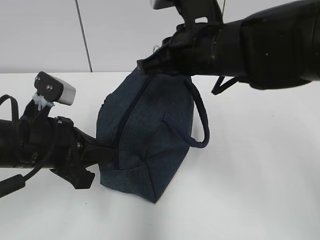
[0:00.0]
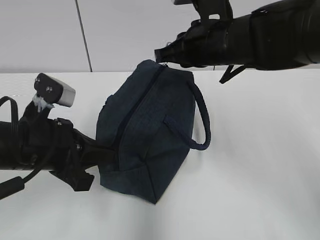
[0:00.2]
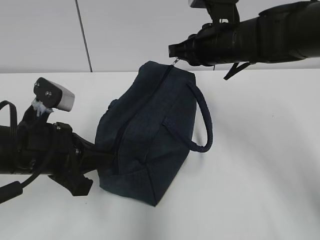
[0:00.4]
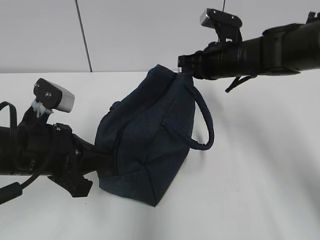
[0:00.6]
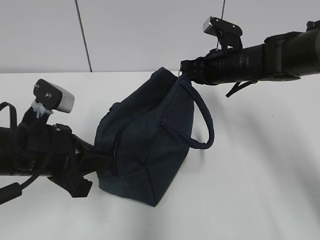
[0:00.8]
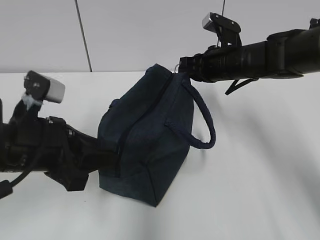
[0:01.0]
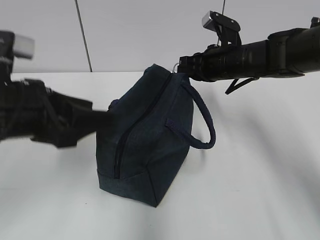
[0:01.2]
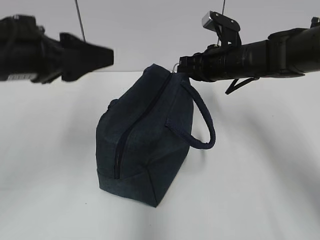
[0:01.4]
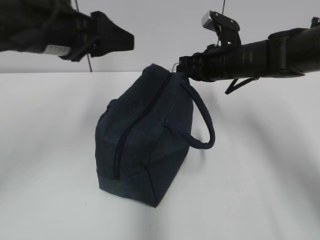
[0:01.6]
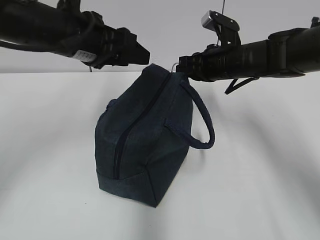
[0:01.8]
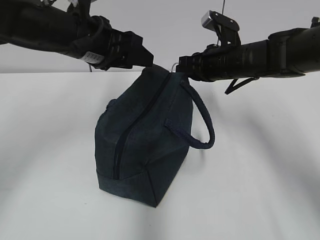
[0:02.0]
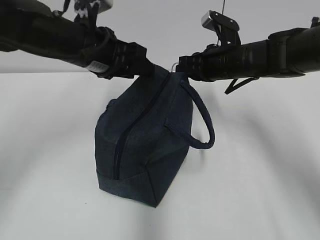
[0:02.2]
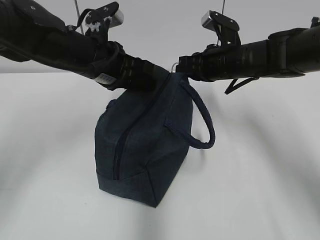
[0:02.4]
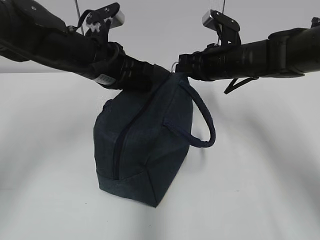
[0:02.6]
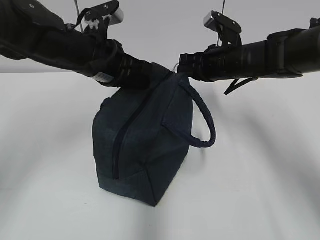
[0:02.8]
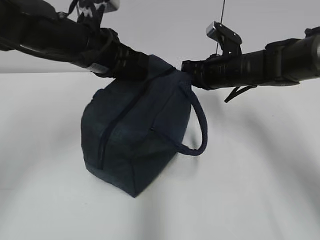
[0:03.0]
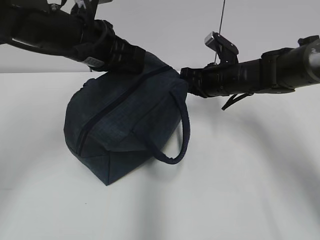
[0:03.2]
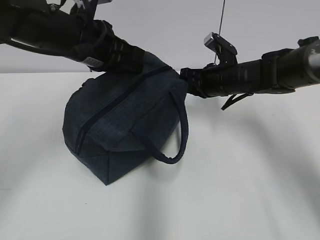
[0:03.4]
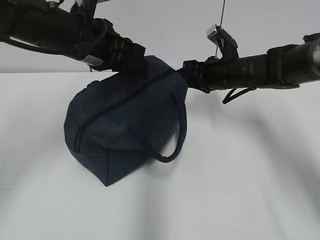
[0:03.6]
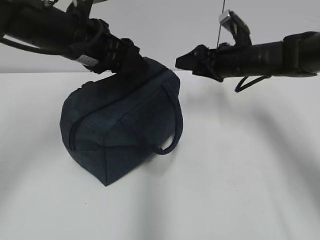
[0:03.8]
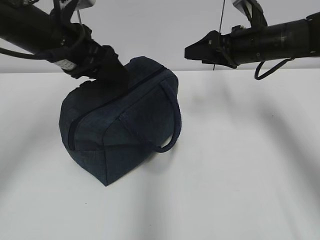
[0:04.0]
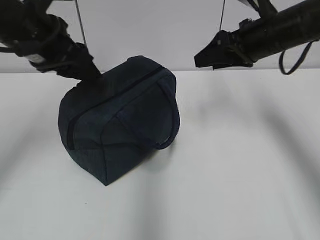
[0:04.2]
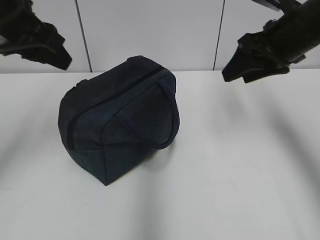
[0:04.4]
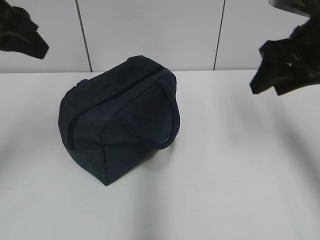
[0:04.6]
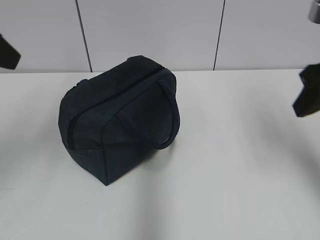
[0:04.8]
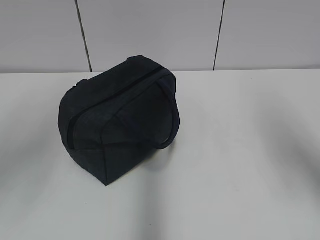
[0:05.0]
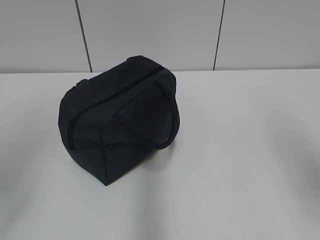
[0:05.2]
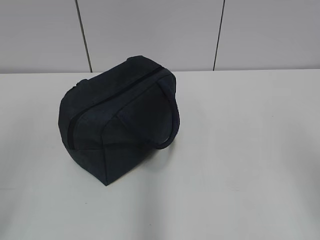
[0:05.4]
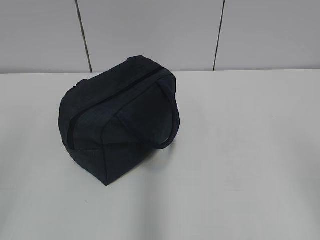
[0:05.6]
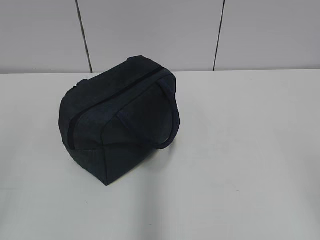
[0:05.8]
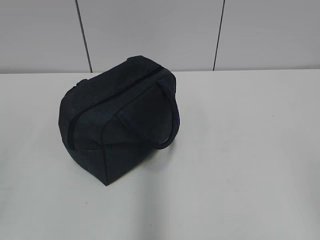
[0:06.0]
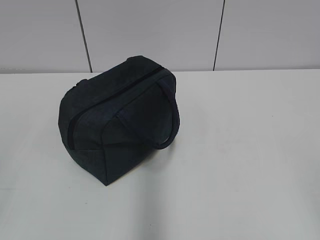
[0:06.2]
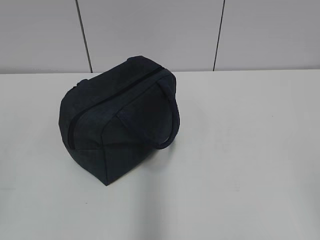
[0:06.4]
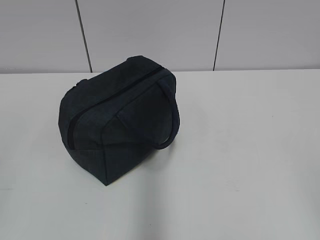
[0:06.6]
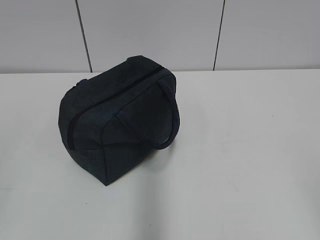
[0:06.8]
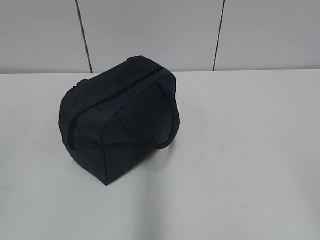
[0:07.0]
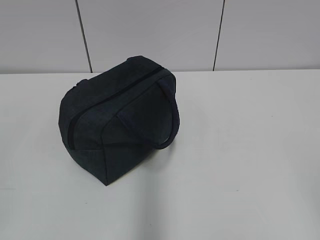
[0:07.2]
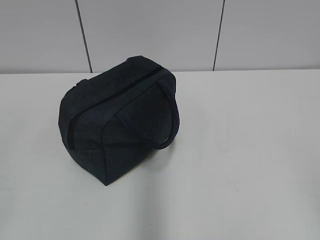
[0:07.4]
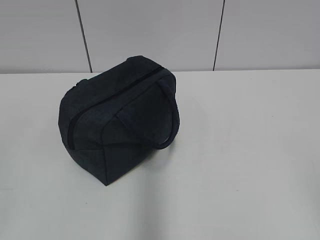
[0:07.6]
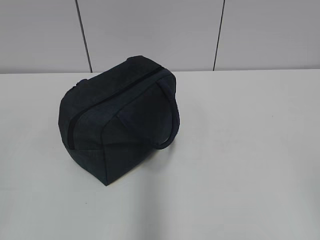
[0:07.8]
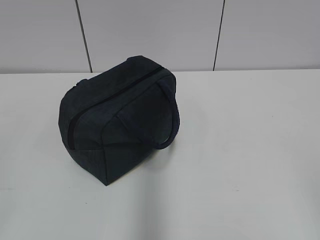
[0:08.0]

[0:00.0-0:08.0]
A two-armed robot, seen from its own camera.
0:00.0 to 0:01.6: The left gripper goes roughly 15 cm upward and forward, and opens. The right gripper heads forward, downward and to the right, covering approximately 15 cm.
0:01.6 to 0:03.2: The left gripper closes its fingers.
0:03.2 to 0:04.8: The left gripper goes roughly 20 cm backward, to the left and upward, and opens; the right gripper is displaced backward, upward and to the right by about 30 cm, and opens its fingers.
0:04.8 to 0:06.4: The left gripper shifts about 25 cm backward and downward, while the right gripper is displaced backward by roughly 25 cm.

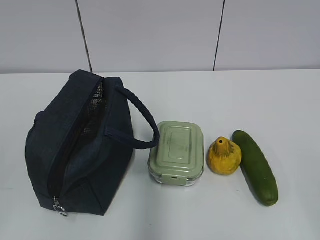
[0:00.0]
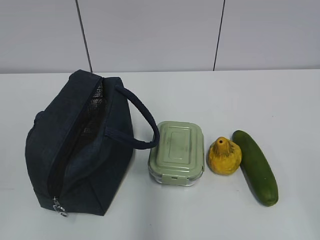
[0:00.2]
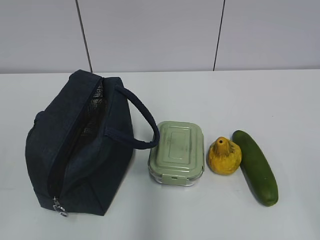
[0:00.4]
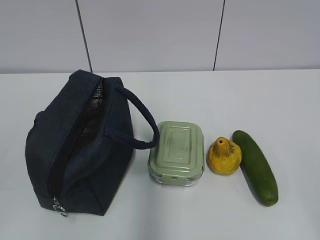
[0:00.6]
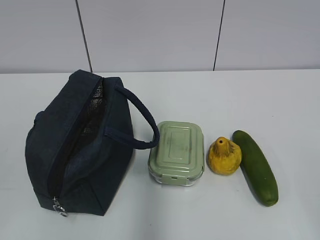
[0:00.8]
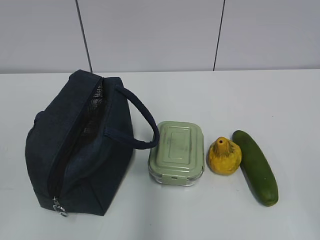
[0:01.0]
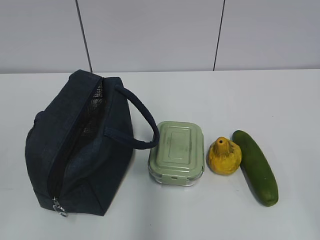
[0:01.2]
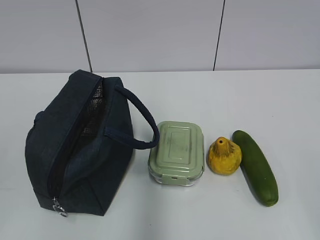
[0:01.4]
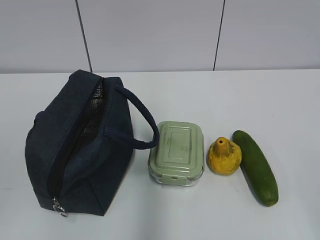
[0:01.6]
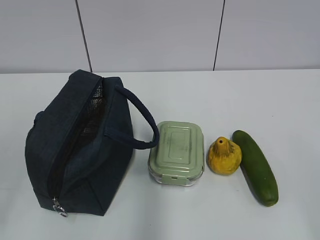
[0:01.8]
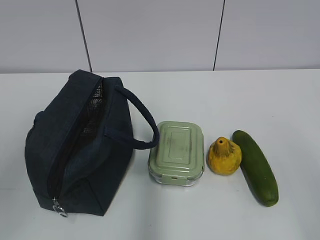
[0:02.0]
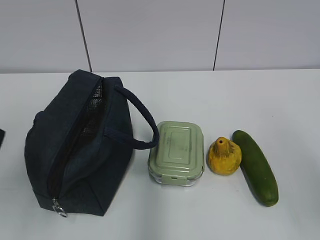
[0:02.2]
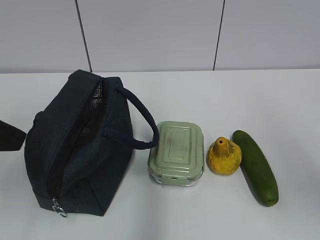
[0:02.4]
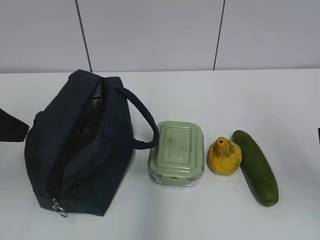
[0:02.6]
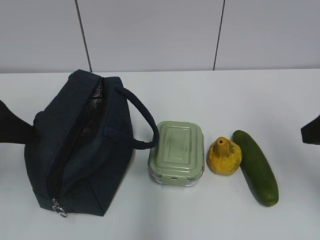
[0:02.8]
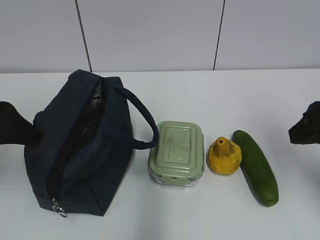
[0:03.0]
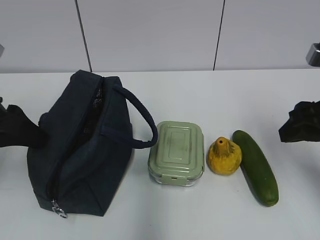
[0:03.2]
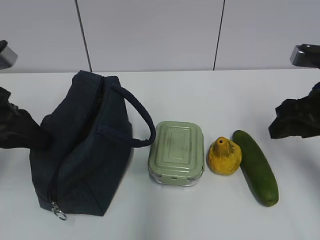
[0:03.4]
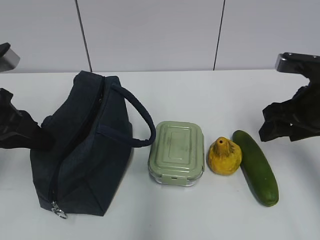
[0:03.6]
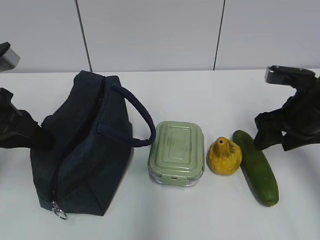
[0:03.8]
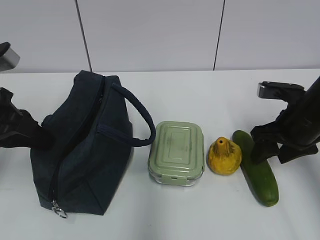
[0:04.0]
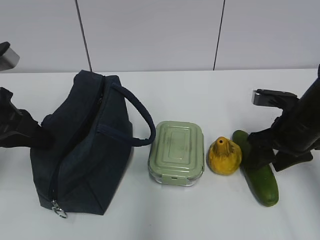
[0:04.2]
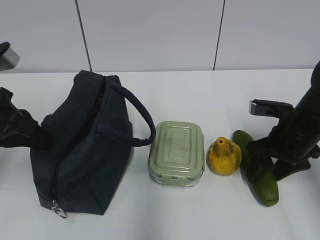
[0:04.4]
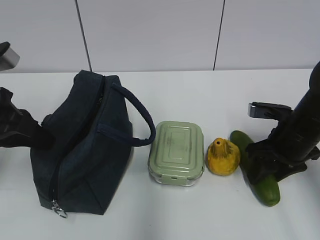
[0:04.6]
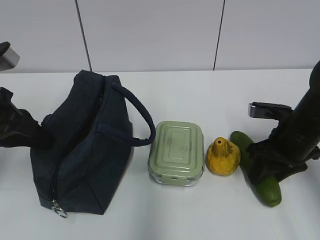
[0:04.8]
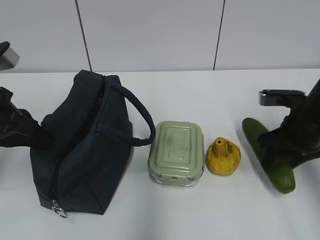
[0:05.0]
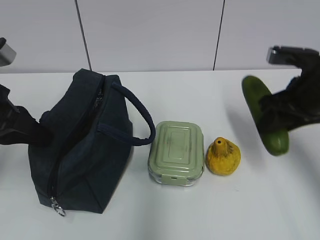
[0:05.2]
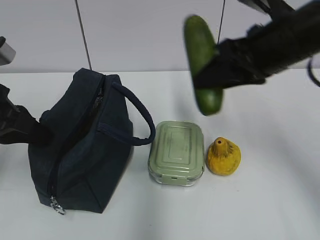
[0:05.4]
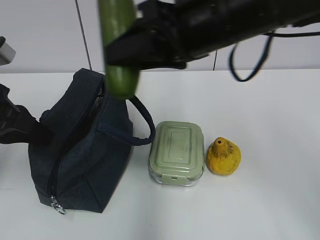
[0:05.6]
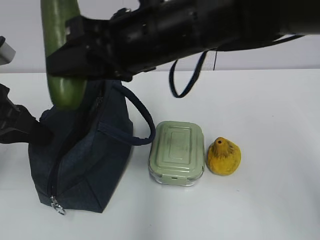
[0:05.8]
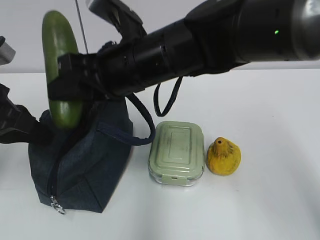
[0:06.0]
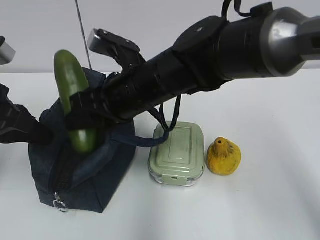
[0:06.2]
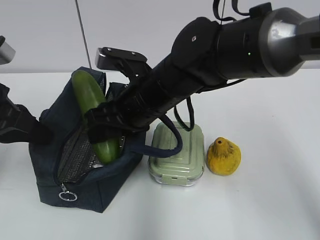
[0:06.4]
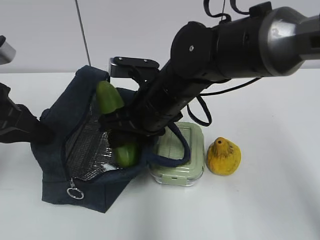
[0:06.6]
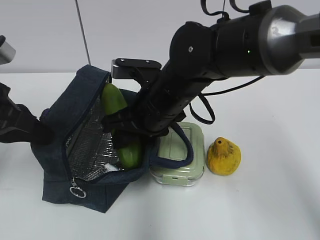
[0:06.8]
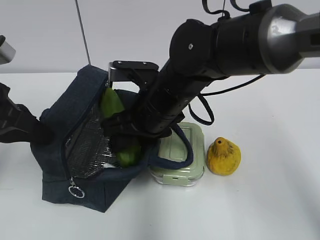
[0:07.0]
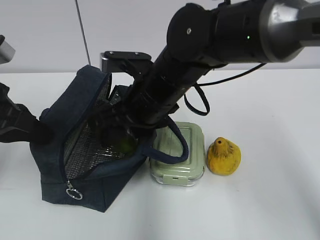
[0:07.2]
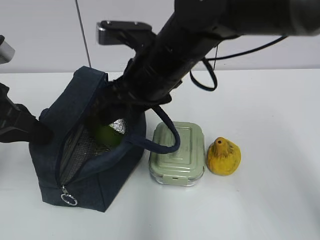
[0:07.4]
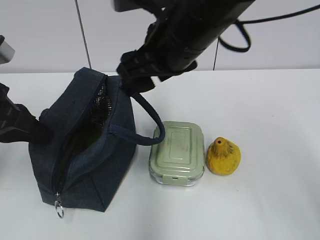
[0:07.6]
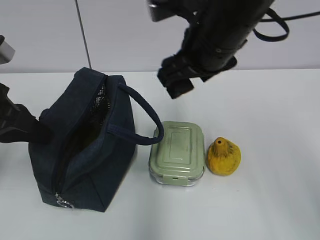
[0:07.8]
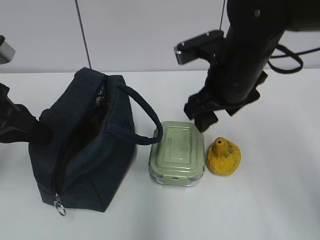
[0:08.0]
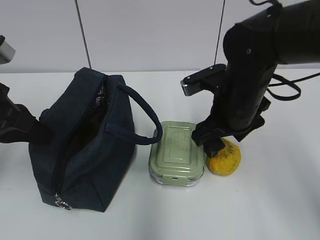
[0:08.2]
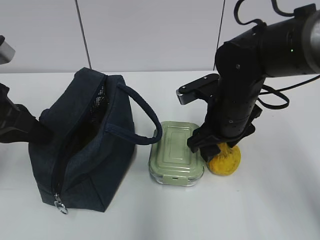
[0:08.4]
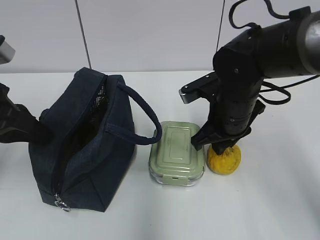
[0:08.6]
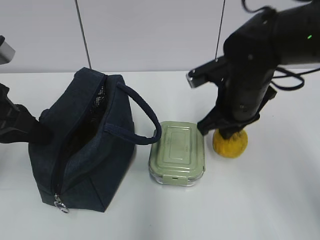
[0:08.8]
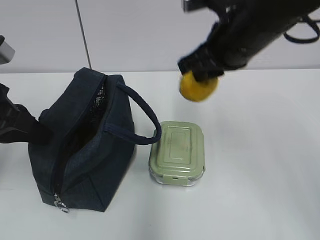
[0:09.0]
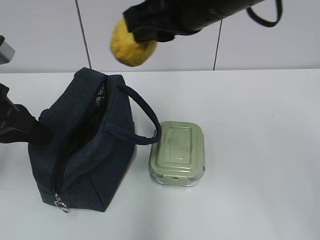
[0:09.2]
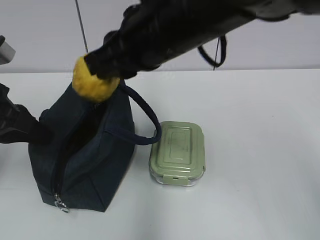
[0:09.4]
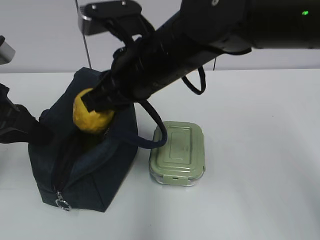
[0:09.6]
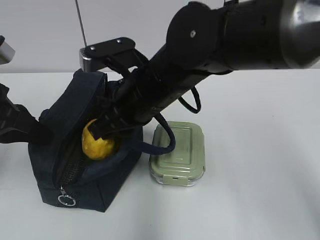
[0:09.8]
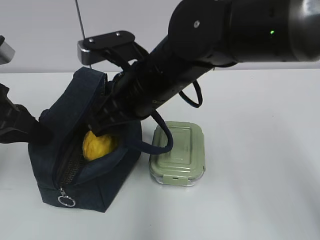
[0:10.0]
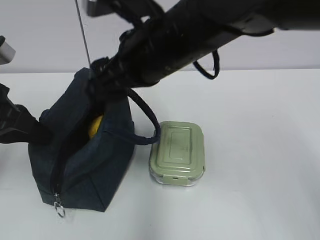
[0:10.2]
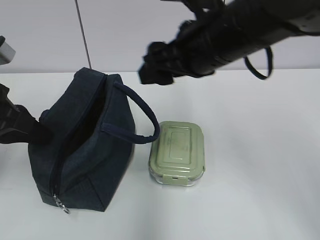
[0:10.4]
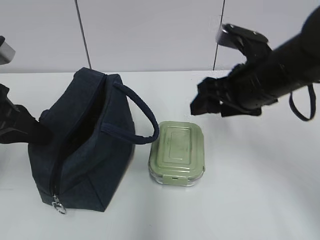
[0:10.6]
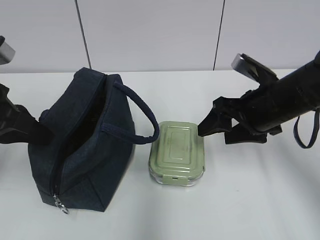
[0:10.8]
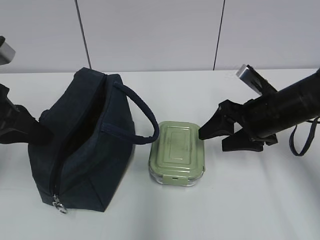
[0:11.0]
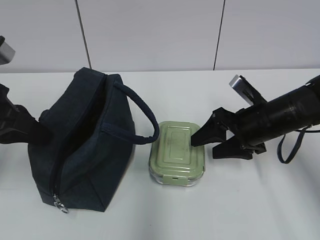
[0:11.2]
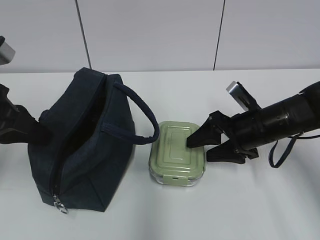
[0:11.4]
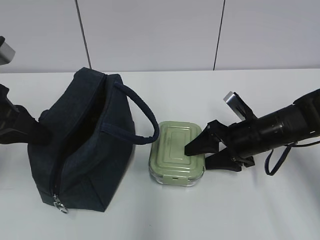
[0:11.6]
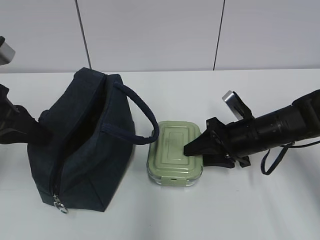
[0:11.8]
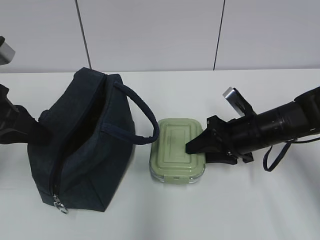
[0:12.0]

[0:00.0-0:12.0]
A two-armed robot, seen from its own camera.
Step, 0:00.0 to 0:04.6: Grab the cucumber with your right hand.
Step, 0:06.4 to 0:07.2: Place it into the bag with your right hand.
Step, 0:07.6 to 0:08.4: Grab the pear with your right hand.
Step, 0:08.6 to 0:10.2: Place it into the bag with your right hand.
Step, 0:10.4 to 0:11.8: Grab the lunch box with your right hand.
0:01.6 to 0:03.0: Both grippers travel together forward, approximately 25 cm.
0:03.0 to 0:04.4: The right gripper moves downward and forward, some 15 cm. Meanwhile the left gripper closes its fingers.
0:04.4 to 0:06.0: The right gripper shifts about 30 cm to the left and upward.
0:06.0 to 0:07.6: The right gripper heads to the right and upward, covering approximately 10 cm, and opens its fingers.
0:07.6 to 0:09.0: The right gripper travels downward and back again, about 15 cm each way, and closes.
0:09.0 to 0:10.4: The right gripper opens its fingers.
0:10.4 to 0:12.0: The right gripper travels downward and to the right by about 20 cm, and closes.

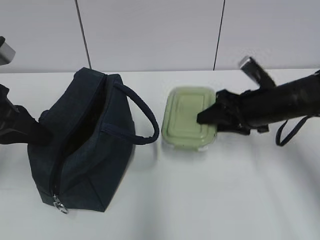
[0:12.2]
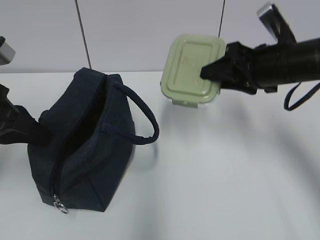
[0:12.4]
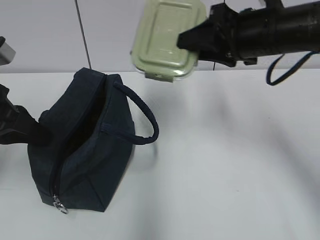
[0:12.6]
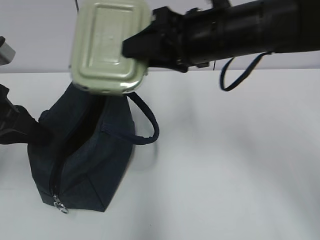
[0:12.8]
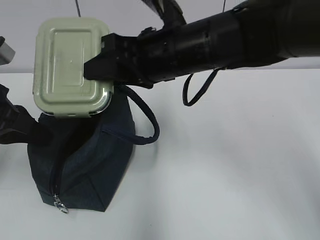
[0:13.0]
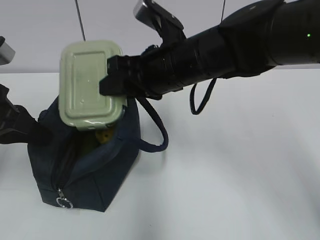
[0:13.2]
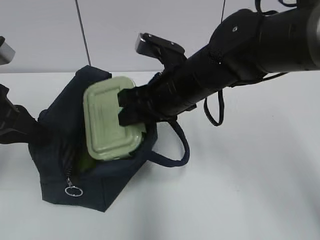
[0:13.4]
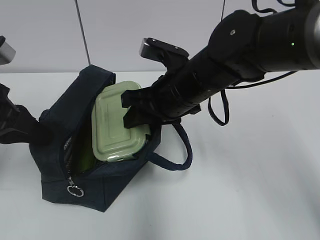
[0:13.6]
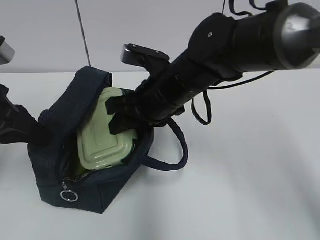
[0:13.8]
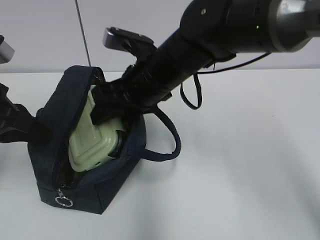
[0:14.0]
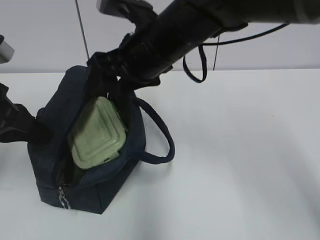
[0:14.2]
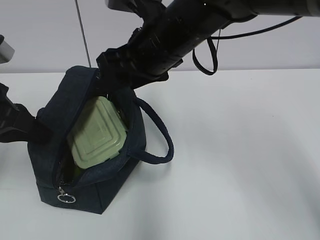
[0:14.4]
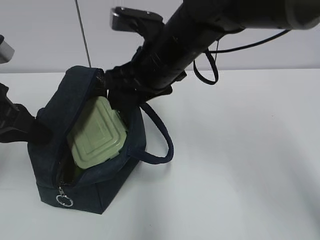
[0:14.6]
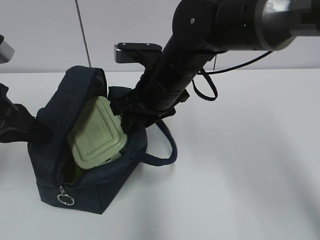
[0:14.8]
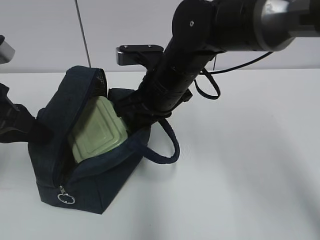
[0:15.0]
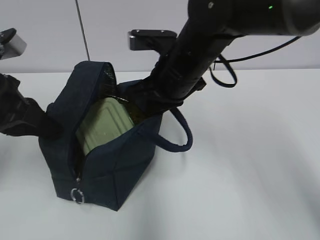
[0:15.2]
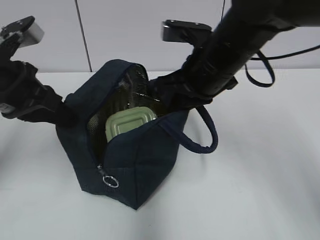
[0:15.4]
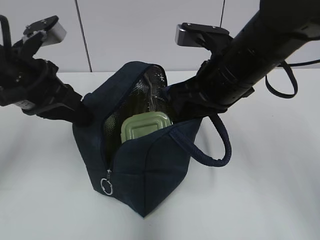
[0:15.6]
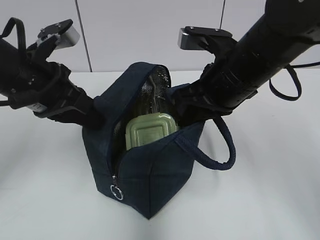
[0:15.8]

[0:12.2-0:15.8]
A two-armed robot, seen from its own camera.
Step, 0:14.2 to 0:15.0: Grab the lunch bag with your right hand.
0:12.2 to 0:14.0: The right gripper moves to the left, roughly 20 cm.
0:14.0 to 0:15.8: The two grippers go some 10 cm to the right. The left gripper opens, while the right gripper closes its fingers.
